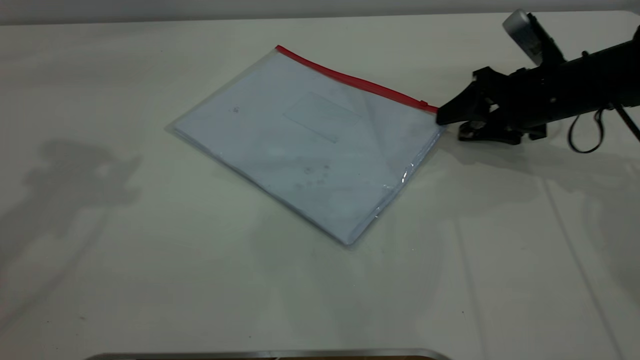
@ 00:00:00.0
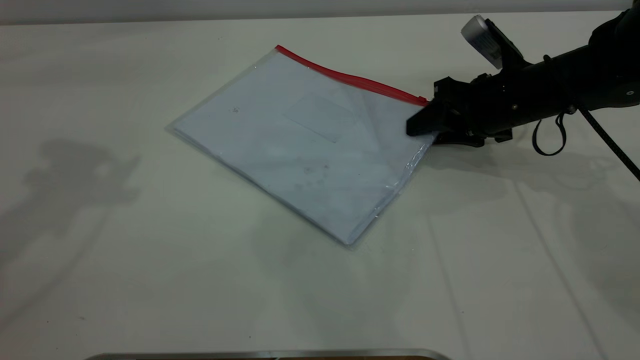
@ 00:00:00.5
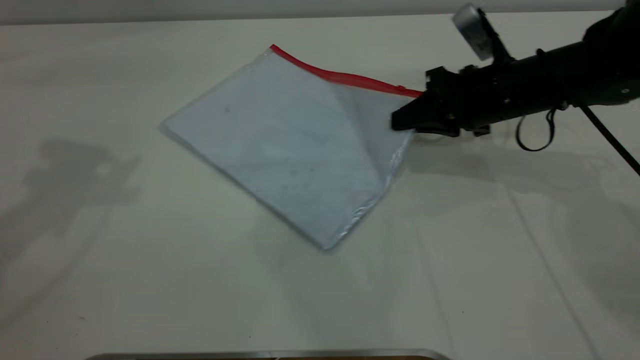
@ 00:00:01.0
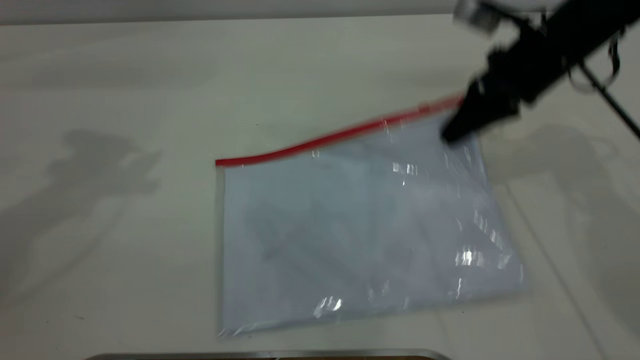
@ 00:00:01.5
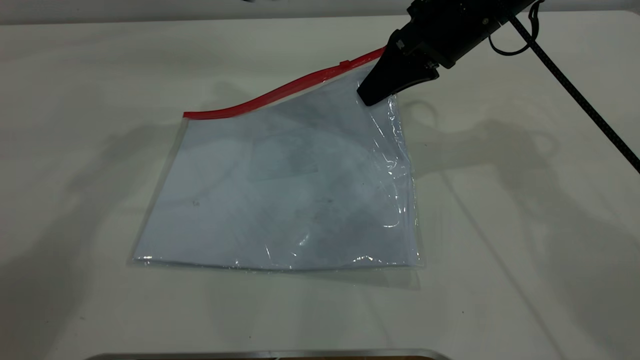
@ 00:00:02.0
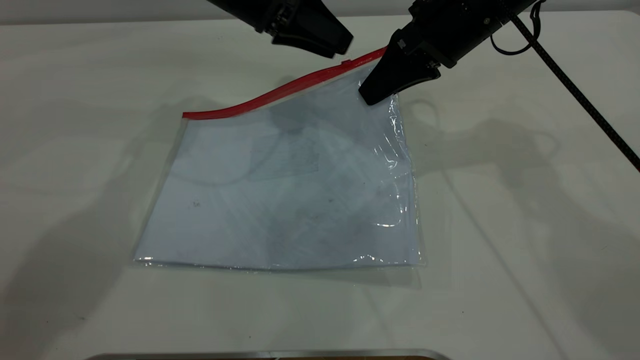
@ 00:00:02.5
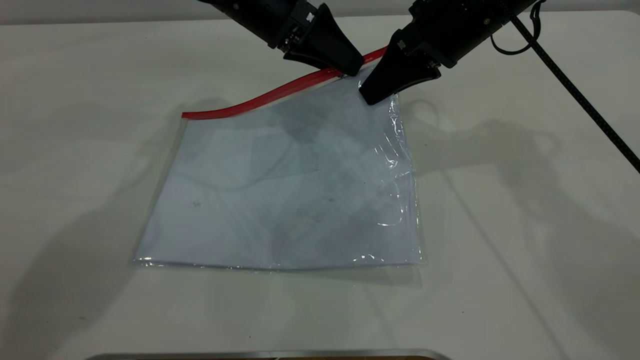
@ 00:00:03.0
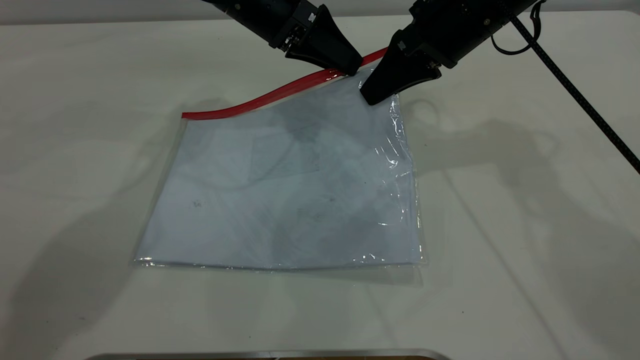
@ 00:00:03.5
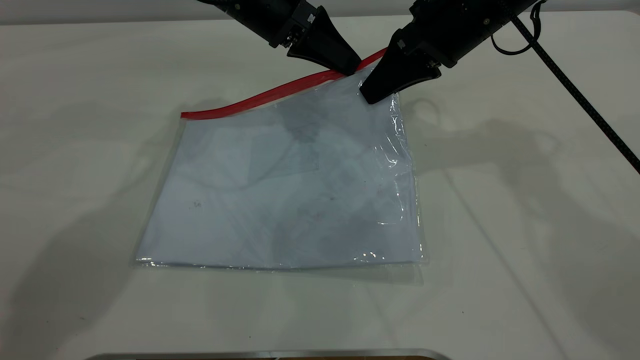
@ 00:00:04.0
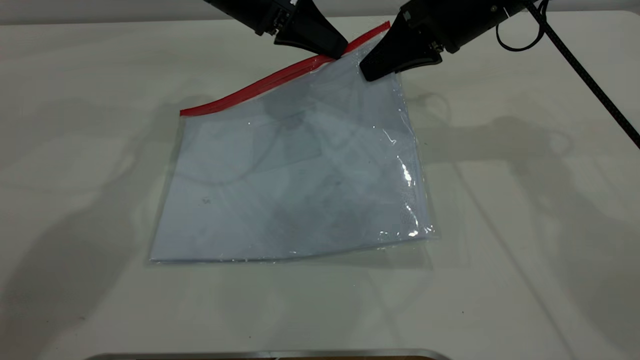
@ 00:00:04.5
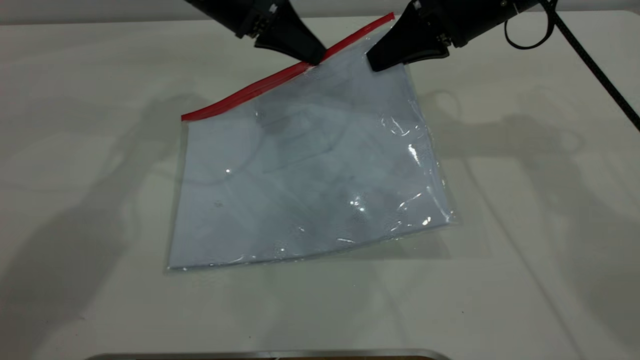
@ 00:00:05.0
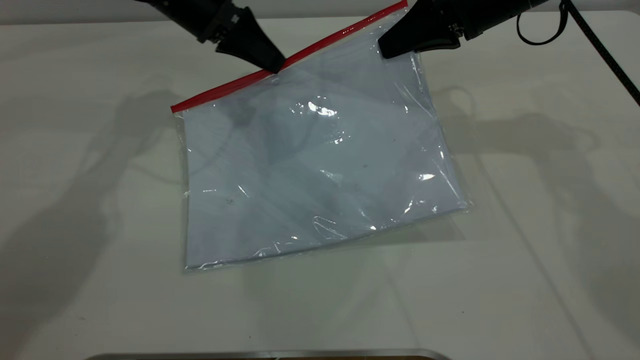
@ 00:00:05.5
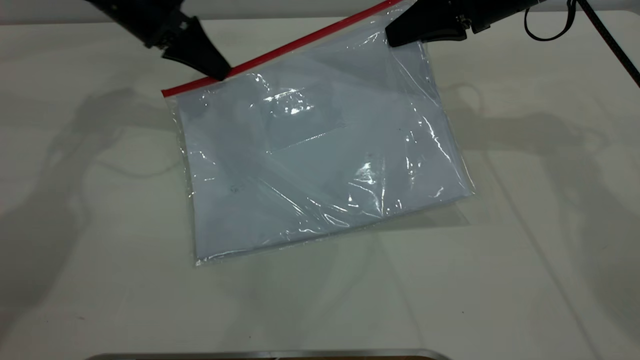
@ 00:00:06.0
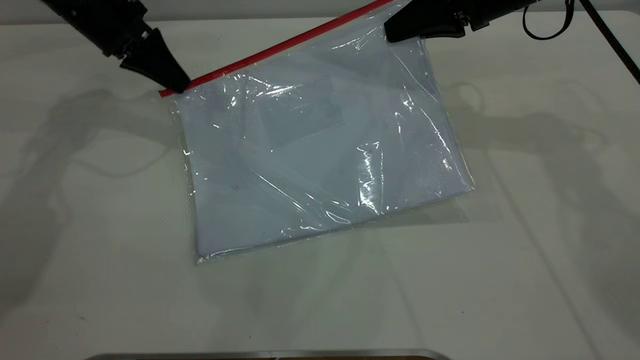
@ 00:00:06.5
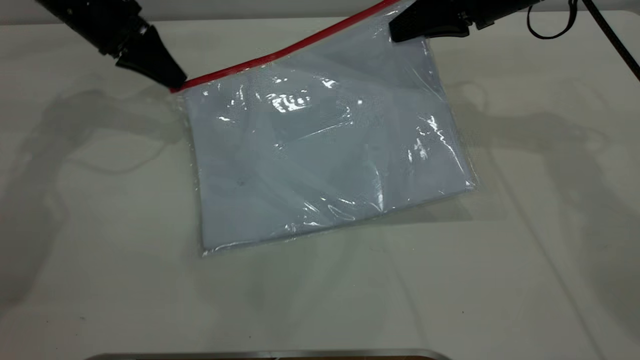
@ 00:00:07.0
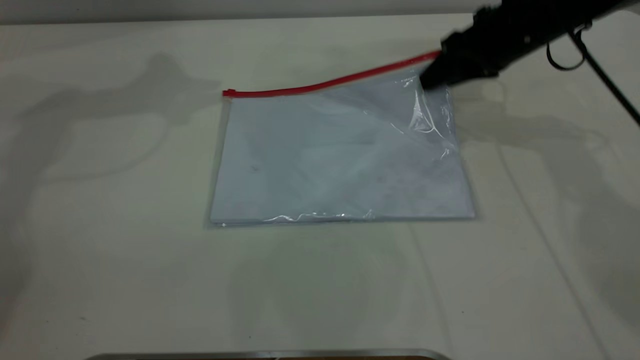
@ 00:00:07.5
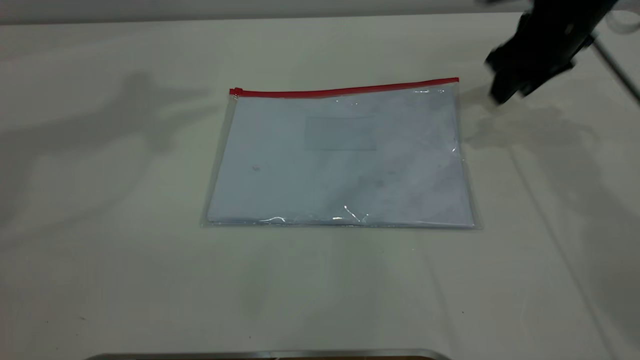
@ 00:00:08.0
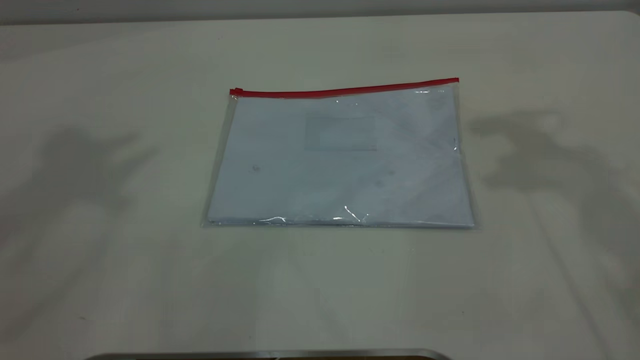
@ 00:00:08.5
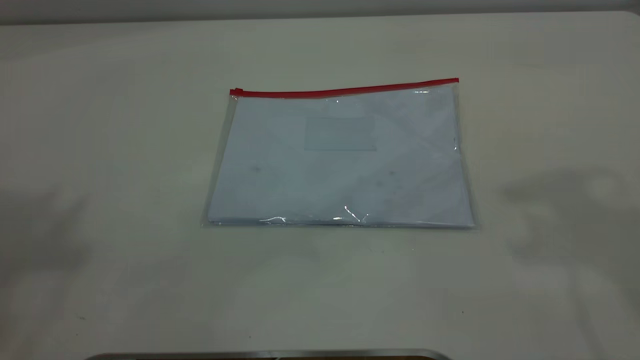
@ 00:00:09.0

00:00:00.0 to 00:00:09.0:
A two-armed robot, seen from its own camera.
Step, 00:00:02.0 to 00:00:07.0: Pulling up the zipper on the transparent plastic bag with the left gripper to close it.
00:00:00.0 to 00:00:02.0: The left gripper heads to the right, forward and downward, covering about 25 cm; the right gripper is displaced to the left and upward by approximately 15 cm, and closes.
00:00:02.0 to 00:00:04.5: The left gripper shifts about 5 cm downward, and closes its fingers.
00:00:04.5 to 00:00:07.0: The left gripper heads to the left, covering about 15 cm.
00:00:07.0 to 00:00:09.0: The two grippers go roughly 40 cm upward and backward. The left gripper opens its fingers; the right gripper opens.

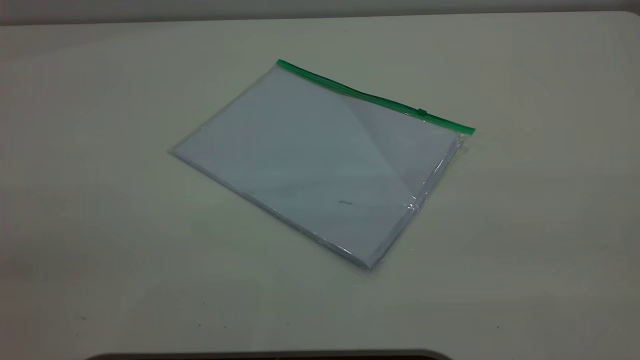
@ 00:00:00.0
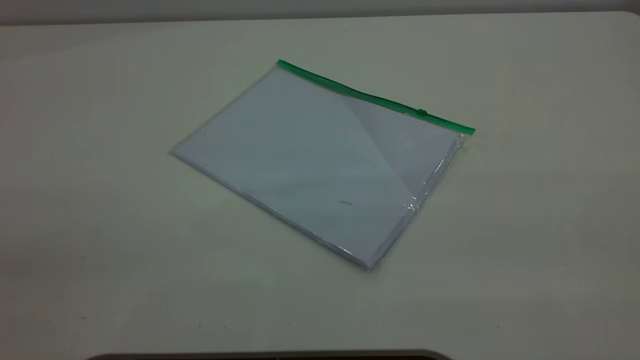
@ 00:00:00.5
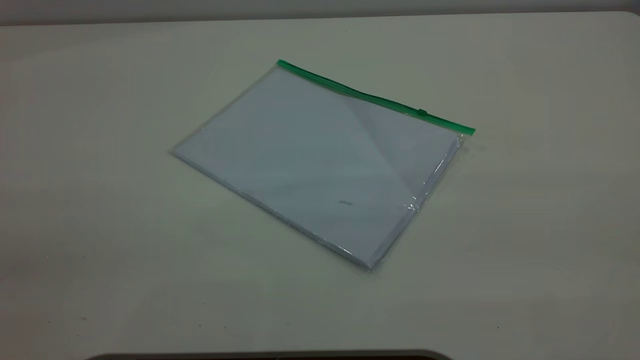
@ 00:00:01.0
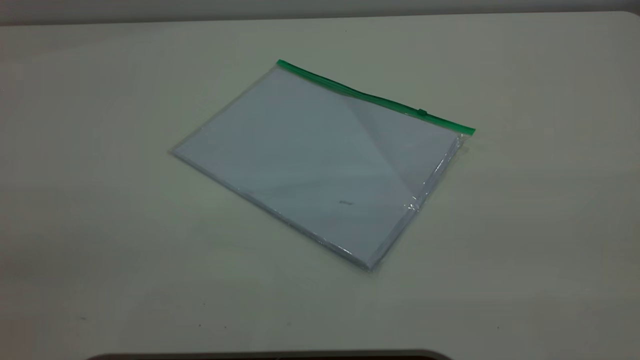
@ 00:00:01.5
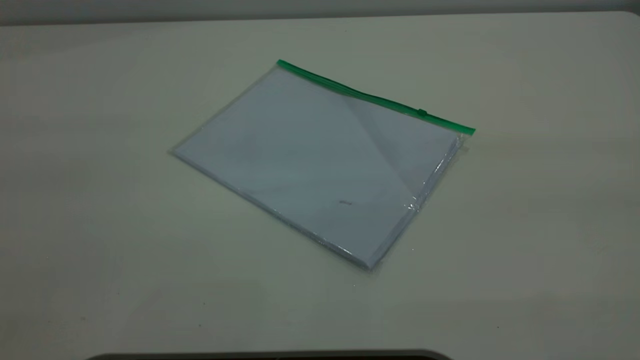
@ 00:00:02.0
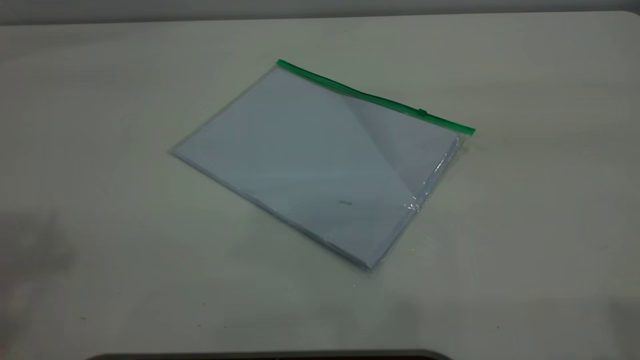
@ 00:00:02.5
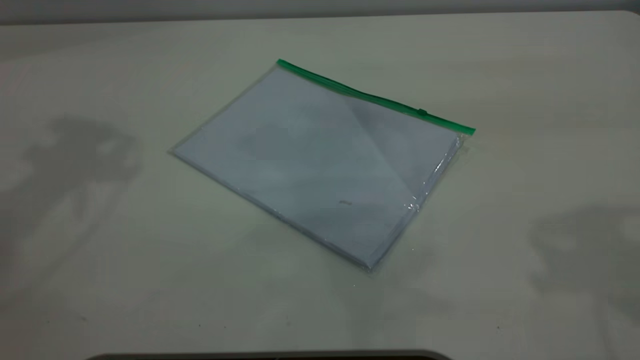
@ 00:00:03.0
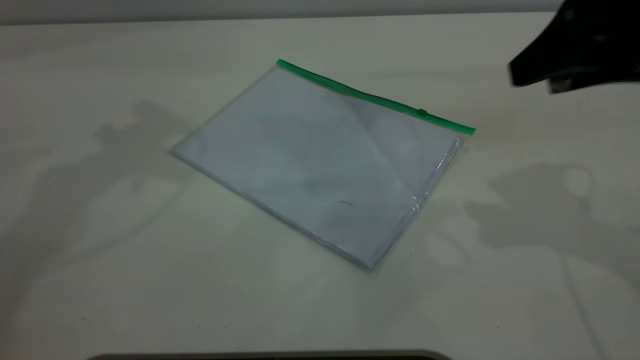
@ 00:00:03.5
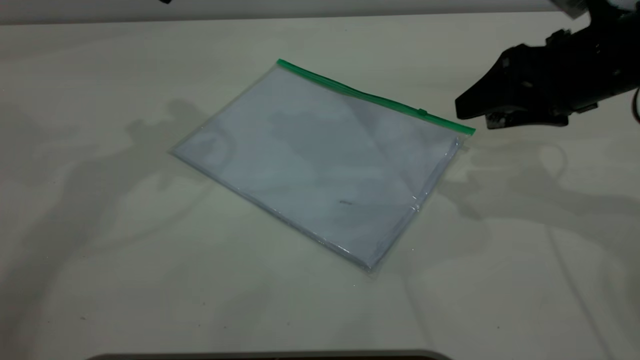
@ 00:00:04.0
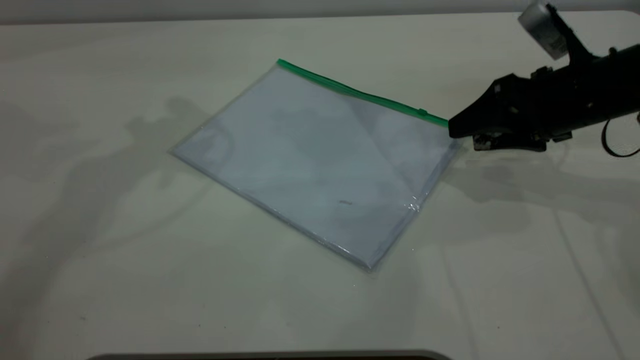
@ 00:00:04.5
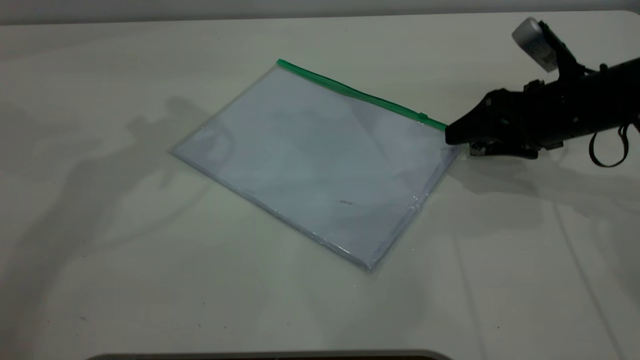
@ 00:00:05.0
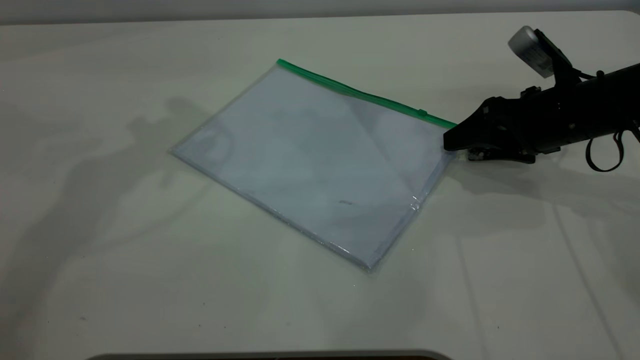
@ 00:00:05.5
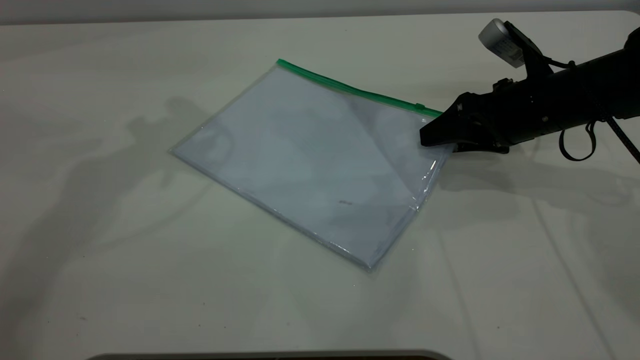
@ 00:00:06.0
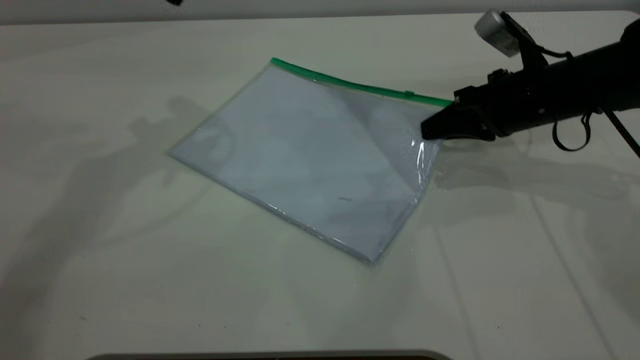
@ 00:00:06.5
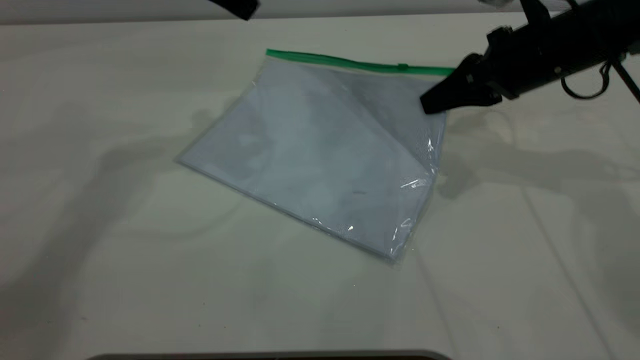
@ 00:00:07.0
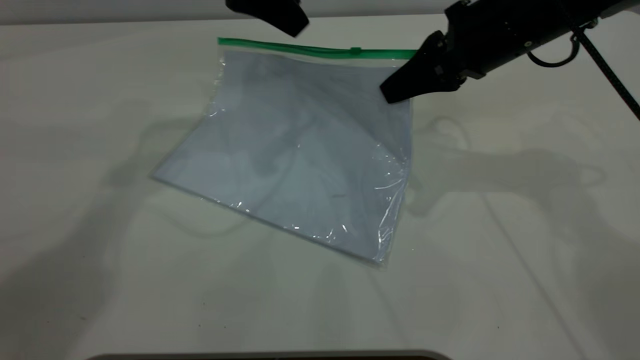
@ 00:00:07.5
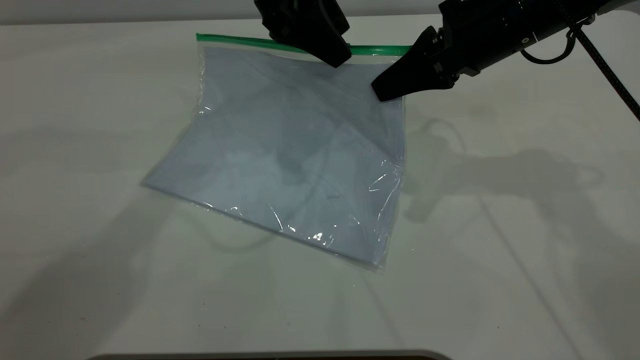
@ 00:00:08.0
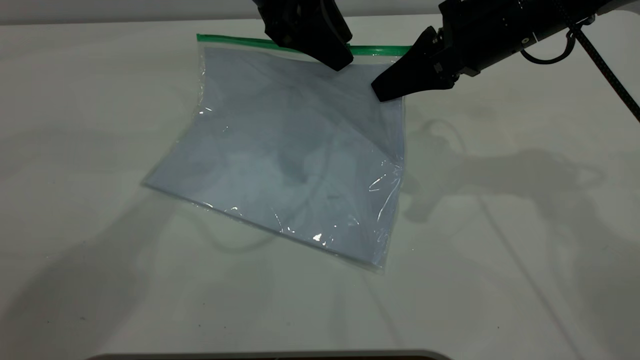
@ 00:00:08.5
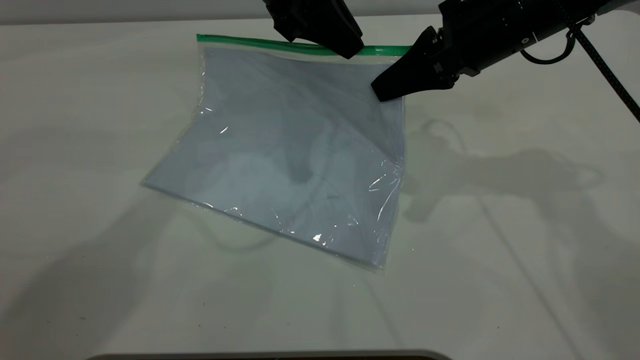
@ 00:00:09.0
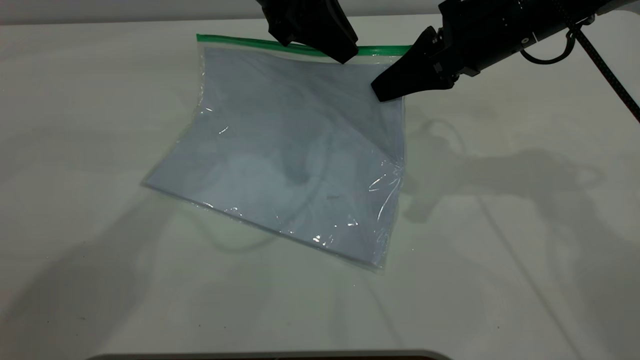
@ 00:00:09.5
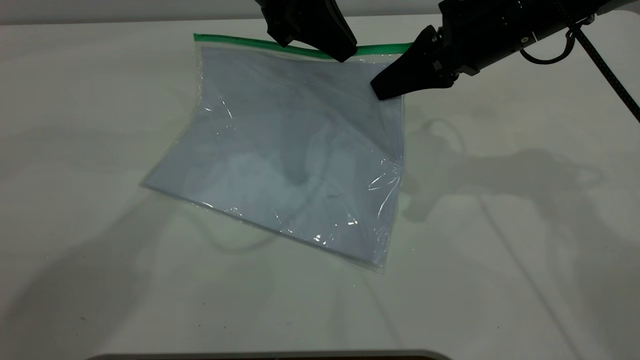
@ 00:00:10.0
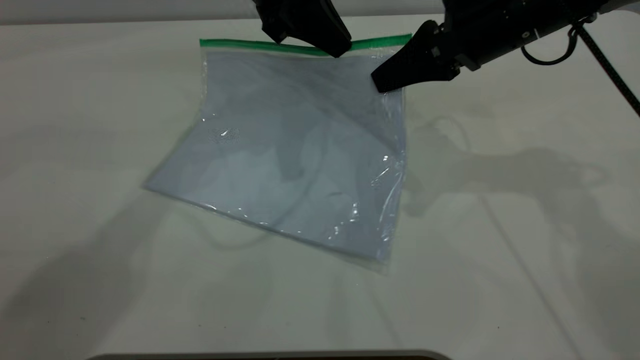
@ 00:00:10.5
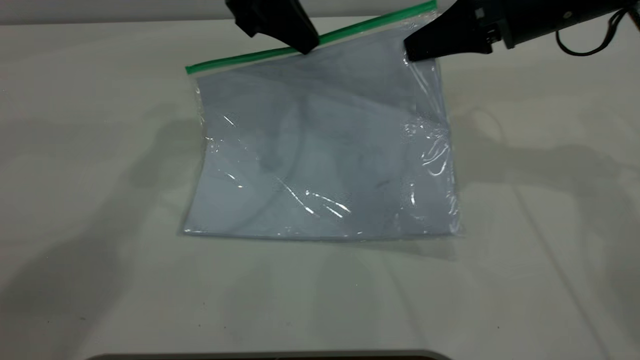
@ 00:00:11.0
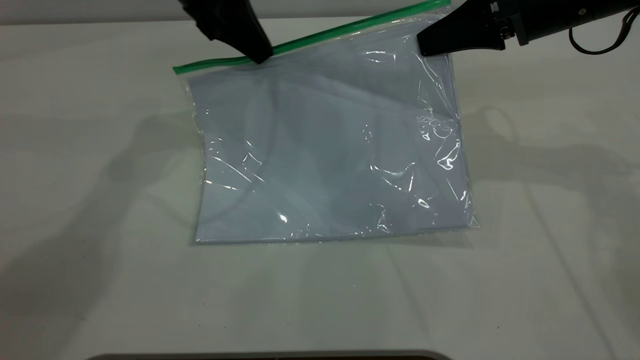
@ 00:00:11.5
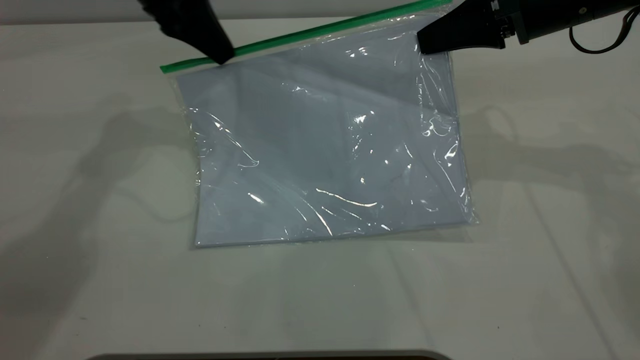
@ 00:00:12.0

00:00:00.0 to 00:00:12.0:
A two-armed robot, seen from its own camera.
Step, 00:00:00.0 to 00:00:06.5: Pick up the transparent plastic bag with the right gripper.
00:00:02.0 to 00:00:04.0: The right gripper goes roughly 40 cm forward and downward.
00:00:04.0 to 00:00:06.0: The right gripper shifts some 10 cm downward.
00:00:06.0 to 00:00:08.0: The left gripper shifts some 15 cm to the right and downward; the right gripper shifts roughly 10 cm upward and to the left, and closes up.
00:00:08.0 to 00:00:10.0: The left gripper closes up.
00:00:10.0 to 00:00:12.0: The right gripper is displaced to the right by roughly 5 cm, while the left gripper heads to the left, covering some 10 cm.
